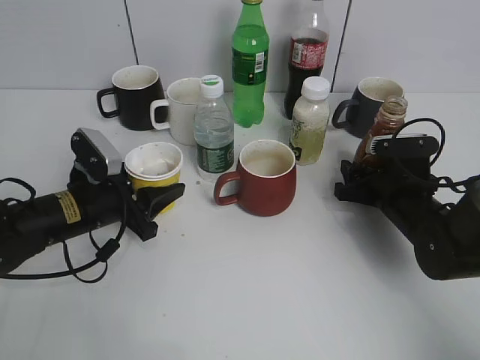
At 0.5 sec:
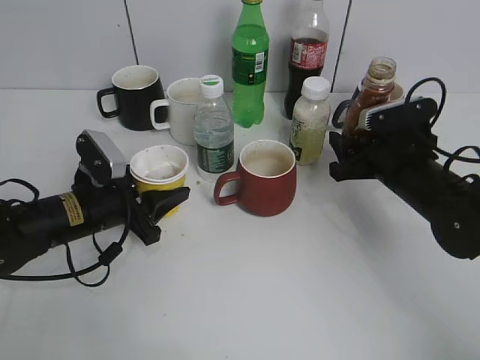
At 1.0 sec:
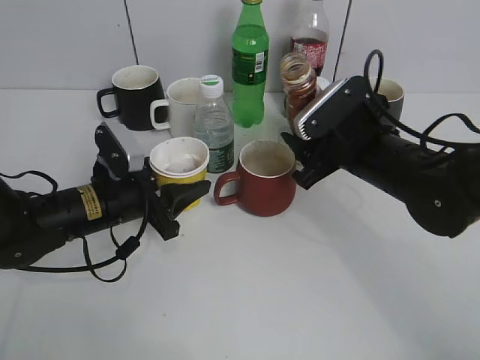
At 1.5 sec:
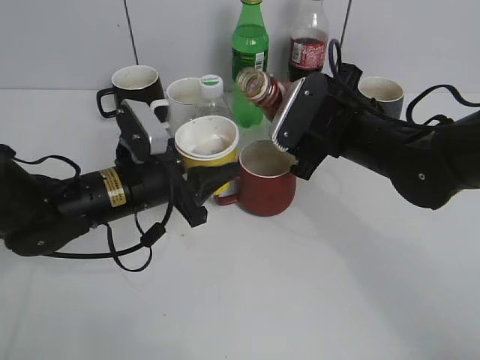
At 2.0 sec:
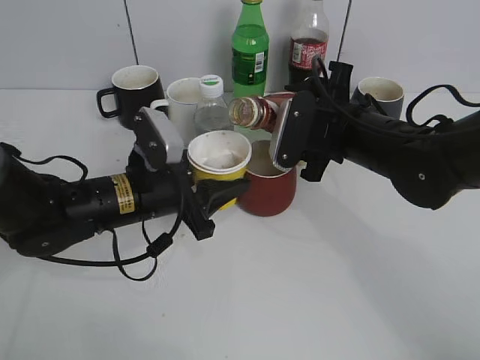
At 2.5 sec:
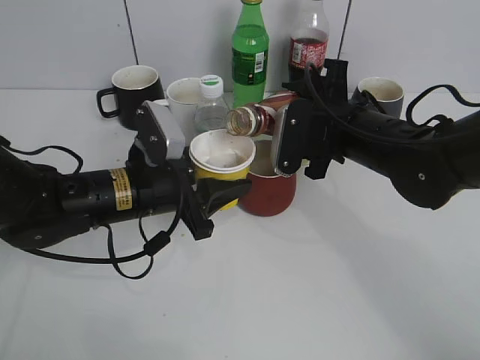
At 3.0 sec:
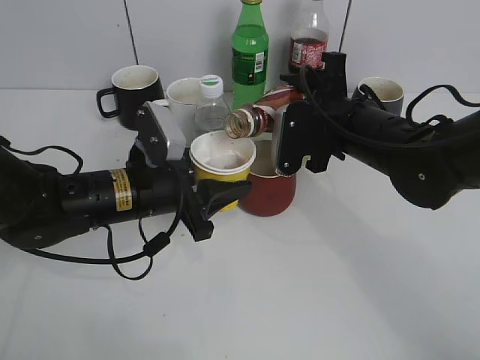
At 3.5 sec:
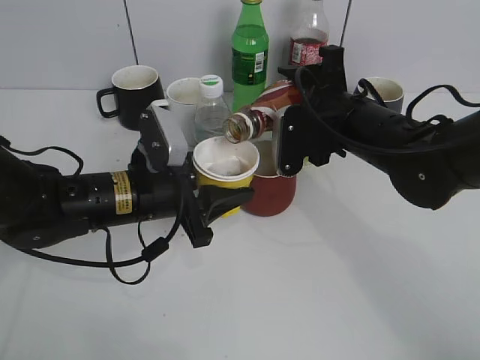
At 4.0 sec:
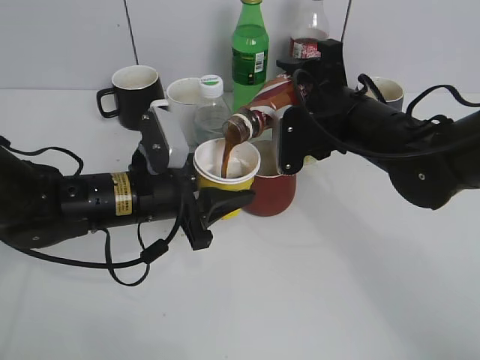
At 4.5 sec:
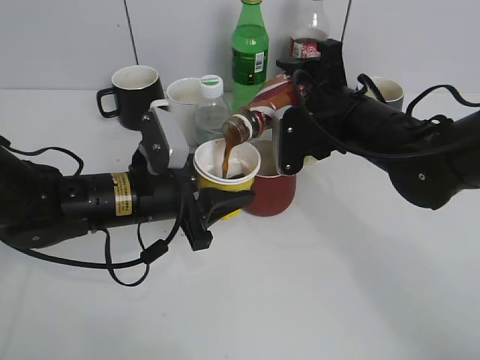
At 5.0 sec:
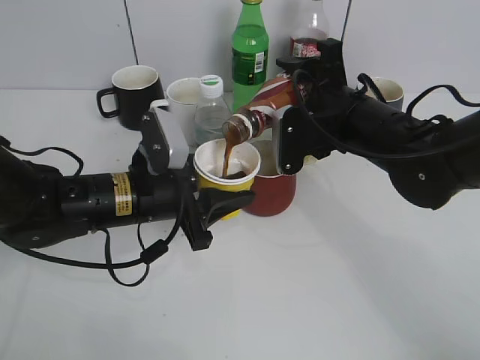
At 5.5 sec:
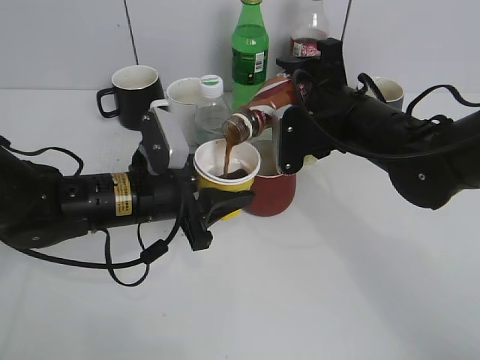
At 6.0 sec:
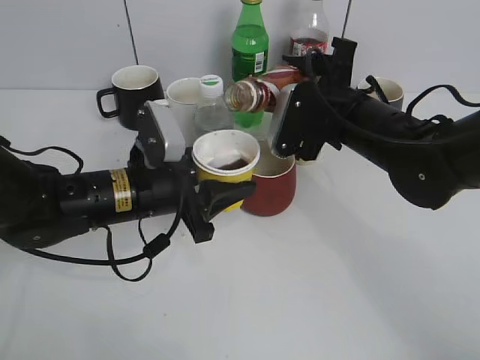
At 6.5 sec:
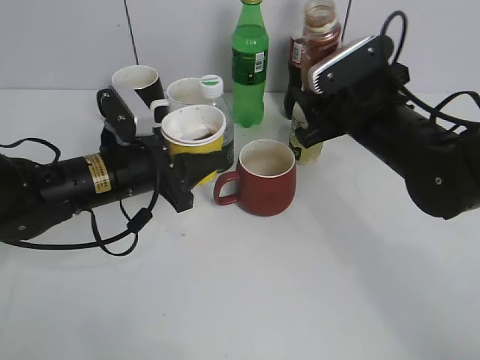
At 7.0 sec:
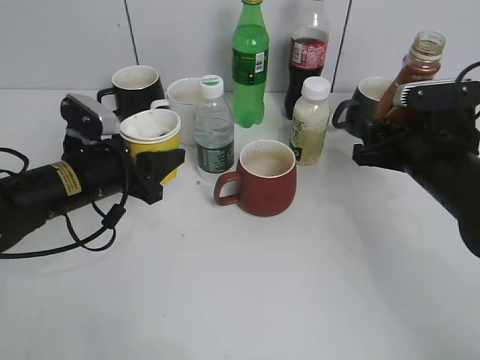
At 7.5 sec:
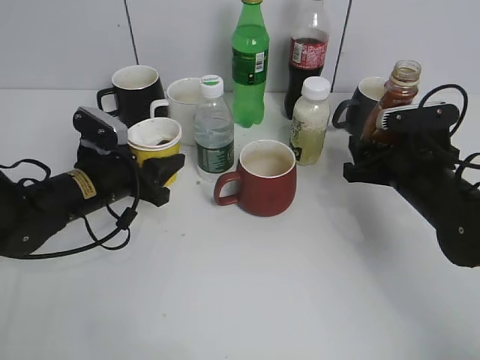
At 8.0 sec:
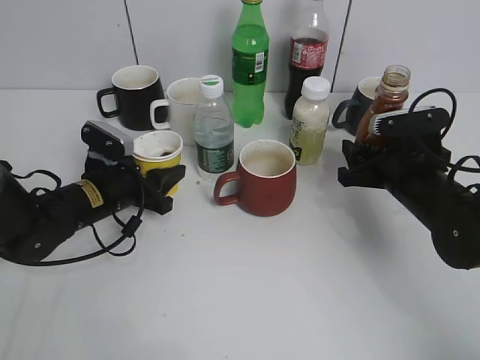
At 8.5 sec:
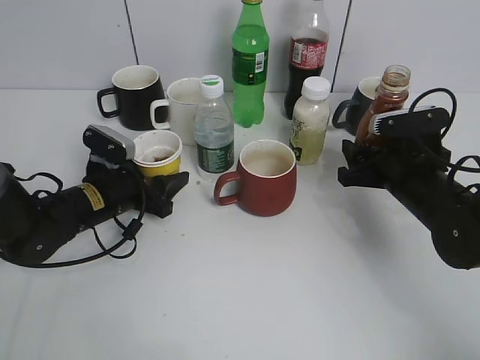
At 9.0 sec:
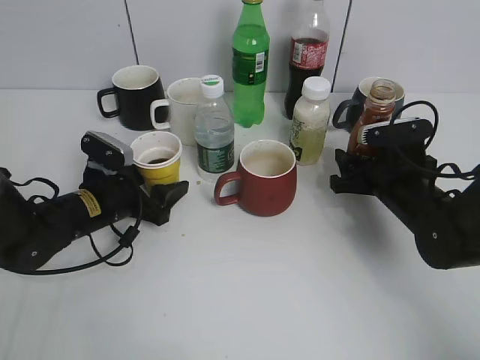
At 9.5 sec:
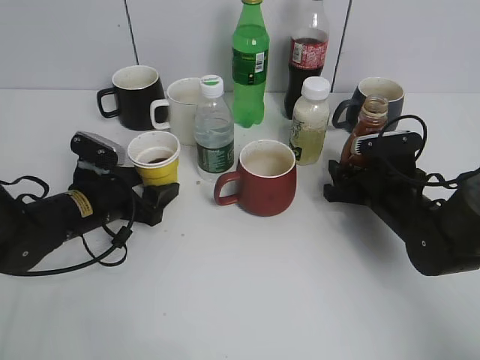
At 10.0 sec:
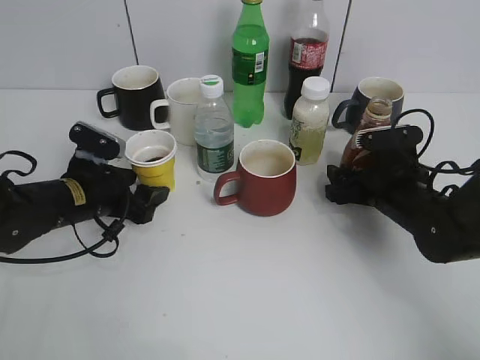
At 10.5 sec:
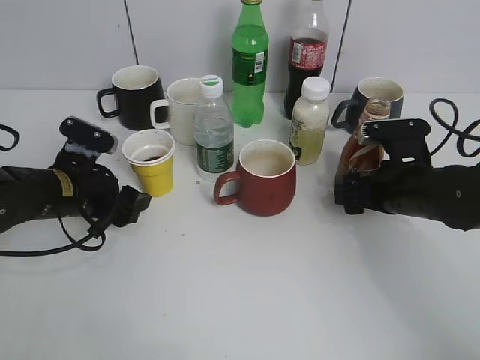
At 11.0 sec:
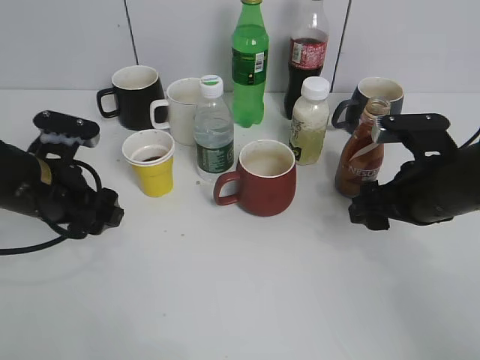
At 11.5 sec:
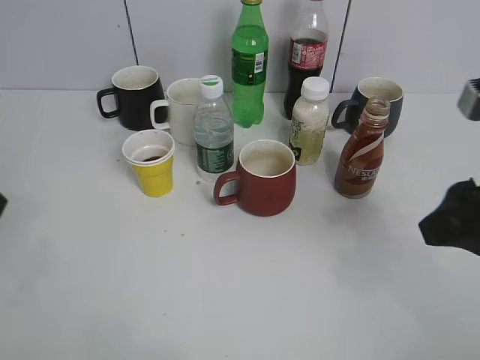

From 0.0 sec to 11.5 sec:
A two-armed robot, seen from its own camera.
Step, from 0.5 sec to 6.5 sec: Pour the coffee from bottle to cup with right gripper.
Step, from 7.0 sec to 10.5 sec: Place the coffee bottle on the table with right gripper.
From 0.0 sec to 2.0 sec: The left gripper goes roughly 10 cm to the right, while the right gripper heads upward and to the left, covering roughly 15 cm.
From 4.0 sec to 6.0 sec: There are only small adjustments of the grippers.
From 6.0 sec to 7.5 sec: The right gripper is displaced to the right and downward by roughly 10 cm; the left gripper travels to the left by roughly 5 cm.
From 7.5 sec to 9.5 sec: The left gripper opens its fingers, while the right gripper is displaced downward by approximately 5 cm.
From 9.5 sec to 11.5 sec: The two grippers go about 25 cm upward and backward. The right gripper opens its fingers.
